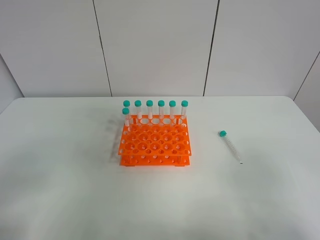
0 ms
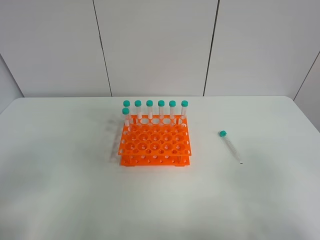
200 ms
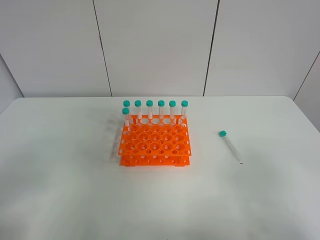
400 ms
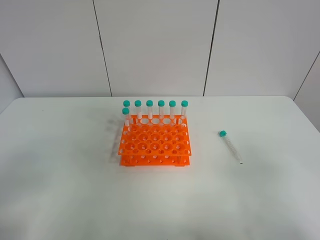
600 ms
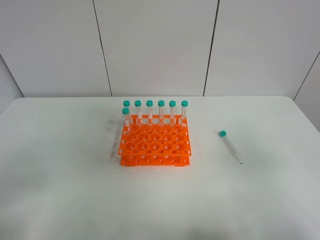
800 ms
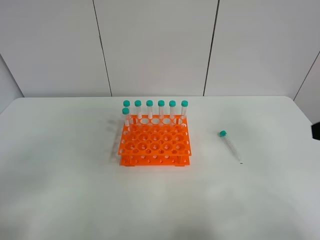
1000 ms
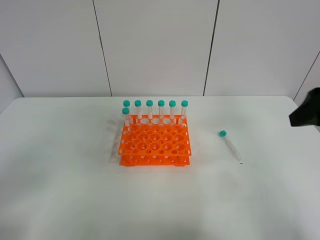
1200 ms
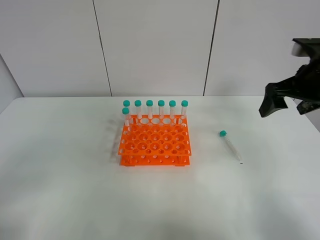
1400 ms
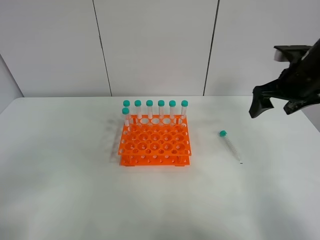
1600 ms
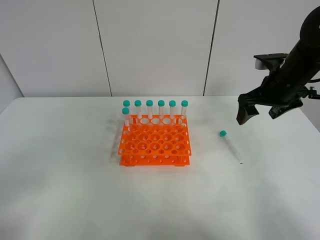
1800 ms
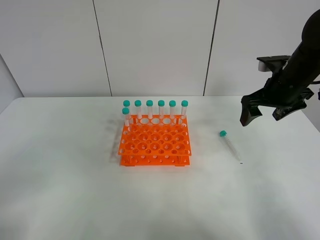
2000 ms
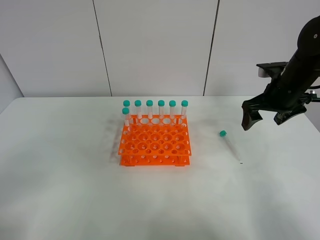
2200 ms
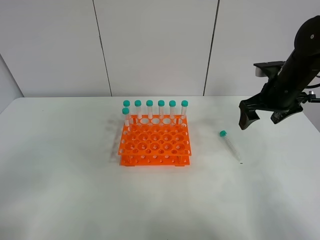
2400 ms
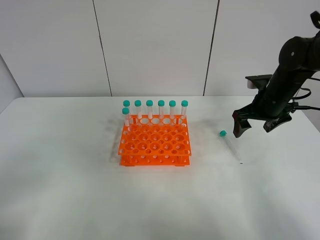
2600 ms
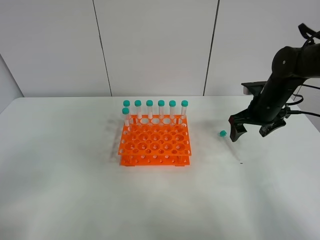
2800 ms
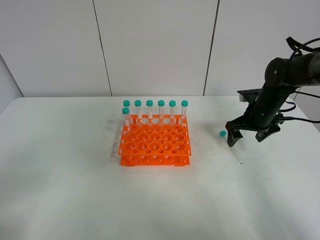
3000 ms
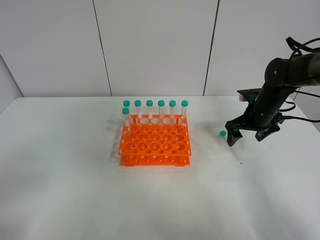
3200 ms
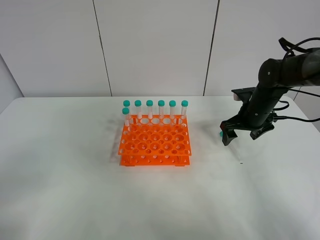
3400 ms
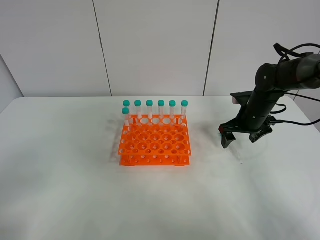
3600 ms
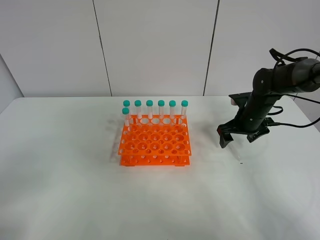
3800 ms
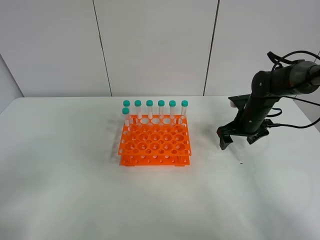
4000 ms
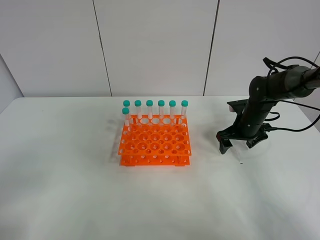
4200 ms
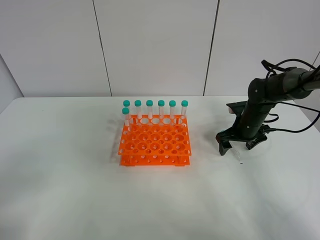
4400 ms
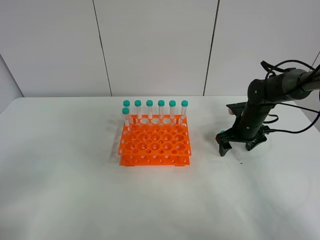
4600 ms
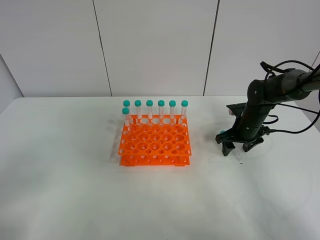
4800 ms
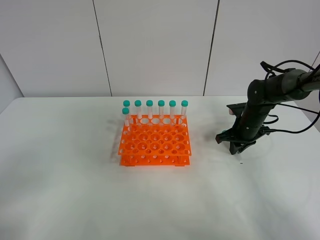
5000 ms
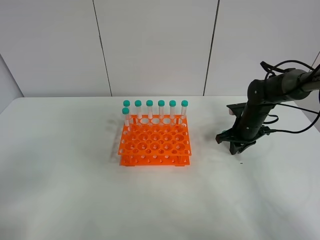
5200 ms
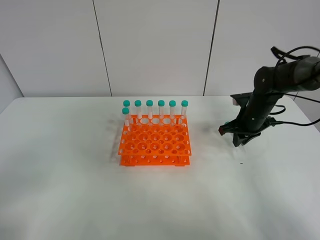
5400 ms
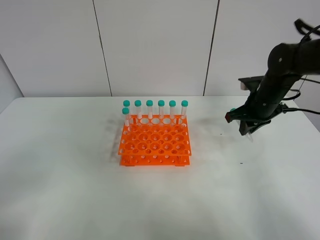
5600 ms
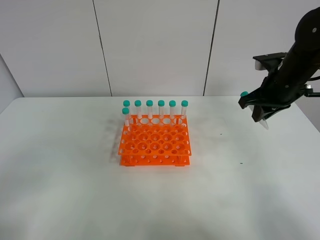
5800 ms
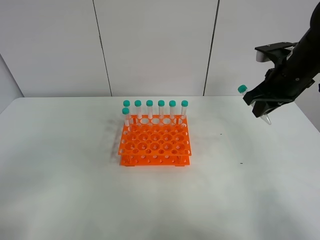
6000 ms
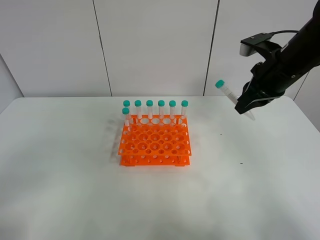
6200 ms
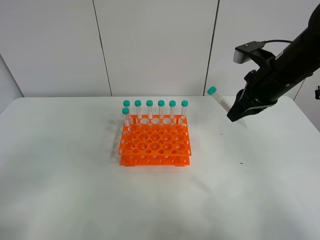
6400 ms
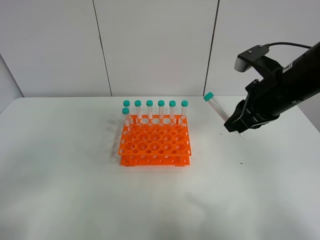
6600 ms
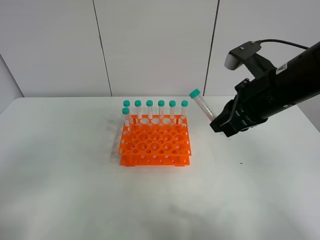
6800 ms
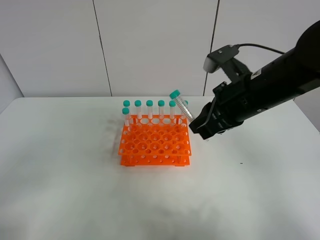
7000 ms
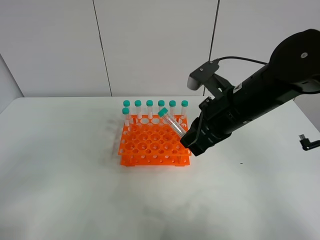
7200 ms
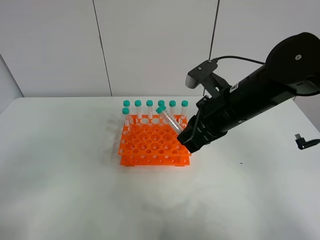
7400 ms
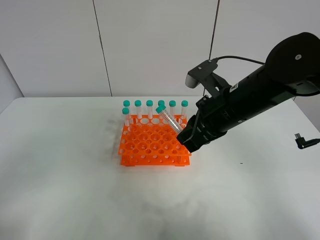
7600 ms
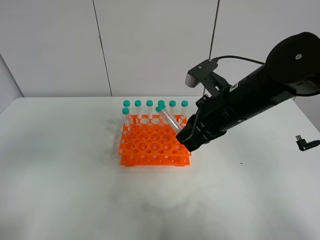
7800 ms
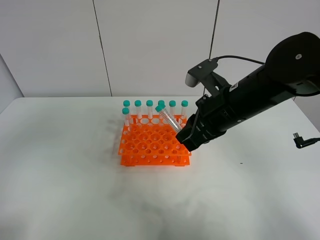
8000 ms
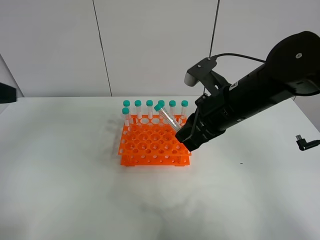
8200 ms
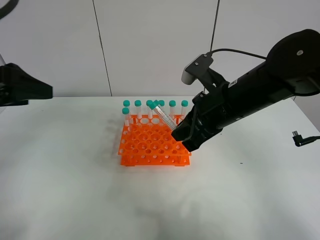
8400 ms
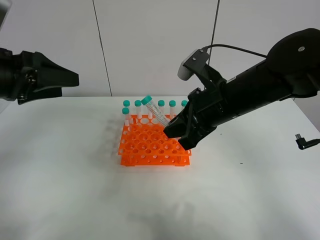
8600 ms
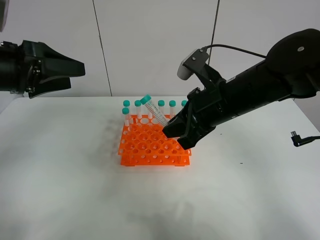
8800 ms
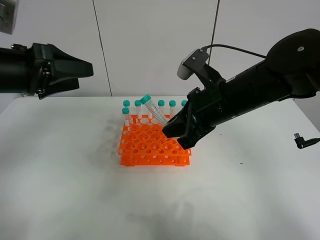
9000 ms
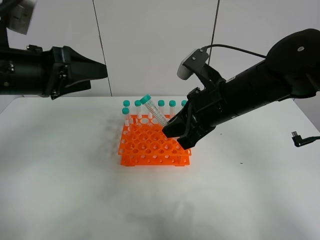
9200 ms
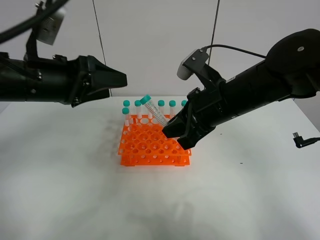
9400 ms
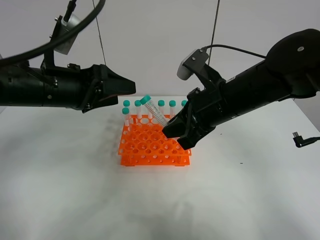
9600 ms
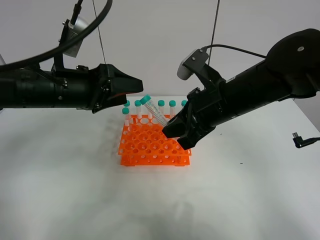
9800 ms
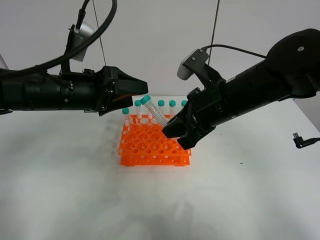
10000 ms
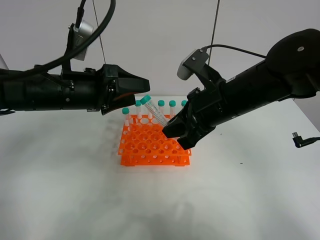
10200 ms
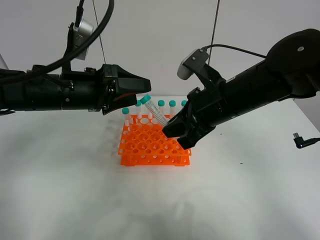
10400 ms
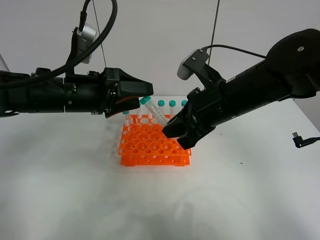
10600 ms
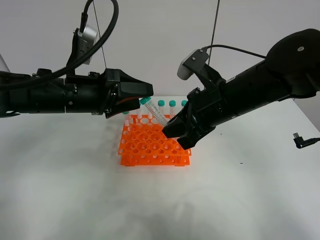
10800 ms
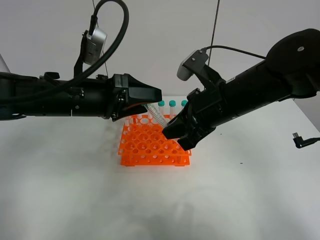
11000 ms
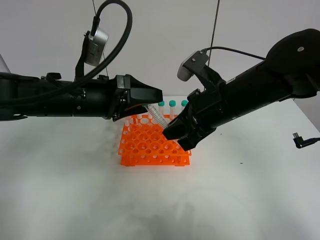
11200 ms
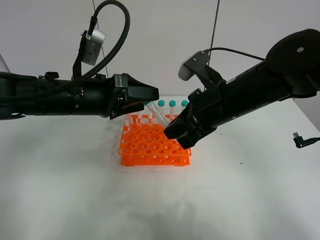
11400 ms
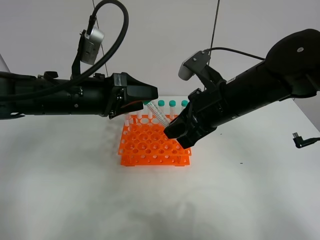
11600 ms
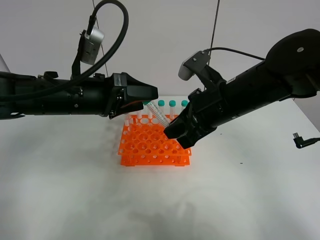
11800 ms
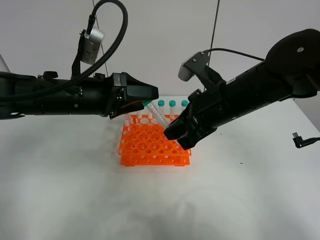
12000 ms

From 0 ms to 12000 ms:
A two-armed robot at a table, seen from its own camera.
Task of the whole recording: Put the test tube on the table back onto the test tube rack.
Step, from 0 ms to 5400 ms: Pick up the test tube with the right gripper.
From 0 ms to 1600 ms: The right gripper goes approximately 35 cm forward.
From 1600 ms to 3000 ms: The right gripper goes approximately 10 cm downward.
From 3000 ms to 4400 ms: The right gripper shifts some 5 cm downward.
From 4400 ms to 6000 ms: The right gripper travels upward by approximately 20 cm, and closes up.
From 6000 ms to 7600 ms: The right gripper travels to the left and backward by some 15 cm.
From 7600 ms to 9000 ms: The left gripper heads forward, covering some 25 cm.
From 9000 ms to 10400 ms: The left gripper is displaced to the right and downward by some 10 cm.
From 10400 ms to 12000 ms: There are only small adjustments of the grippers.

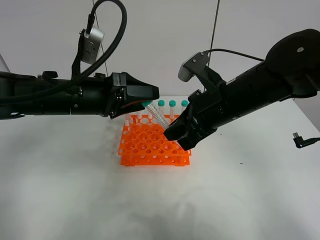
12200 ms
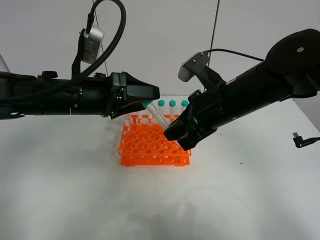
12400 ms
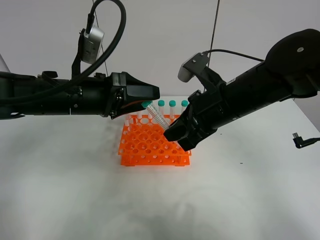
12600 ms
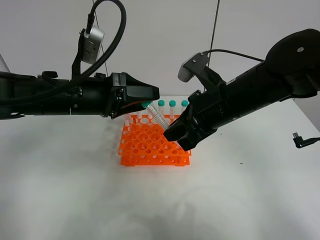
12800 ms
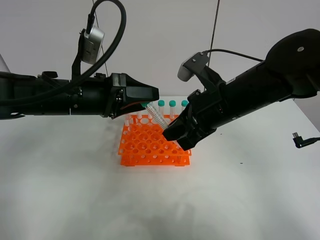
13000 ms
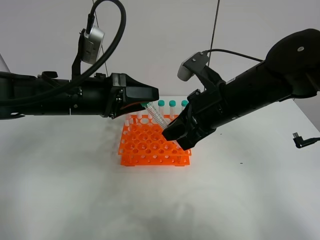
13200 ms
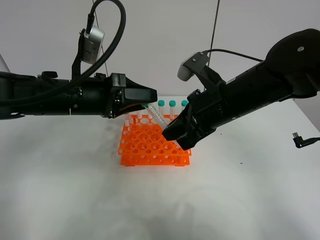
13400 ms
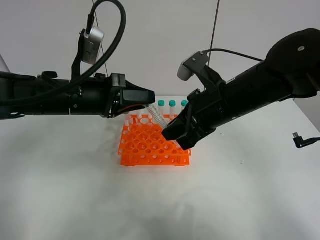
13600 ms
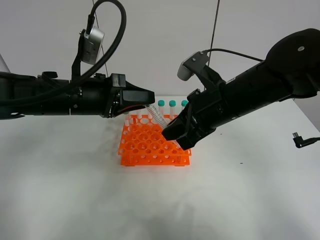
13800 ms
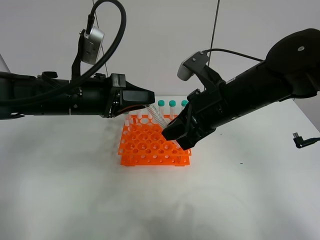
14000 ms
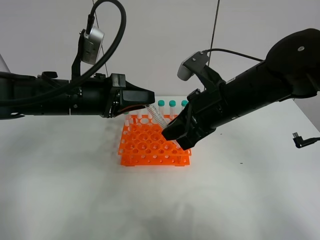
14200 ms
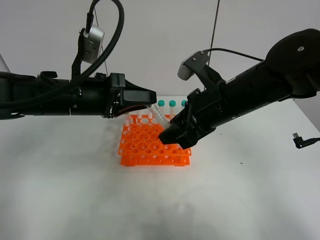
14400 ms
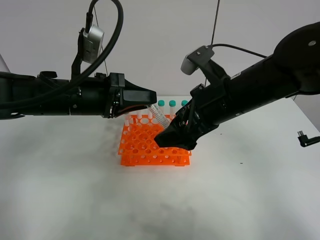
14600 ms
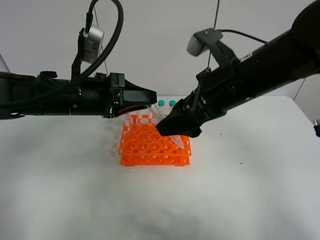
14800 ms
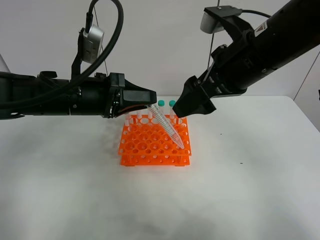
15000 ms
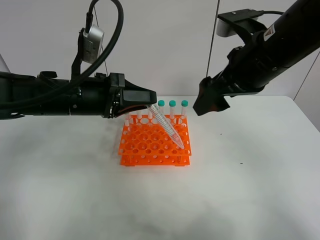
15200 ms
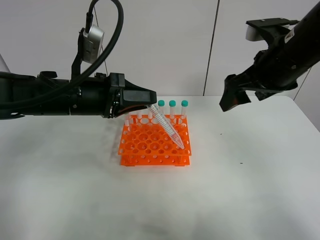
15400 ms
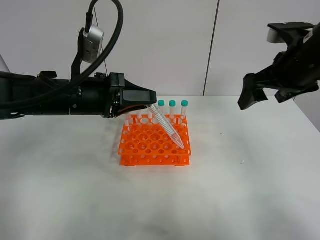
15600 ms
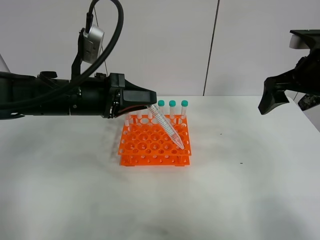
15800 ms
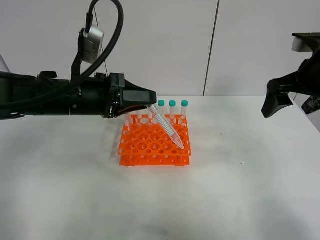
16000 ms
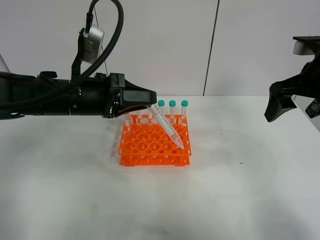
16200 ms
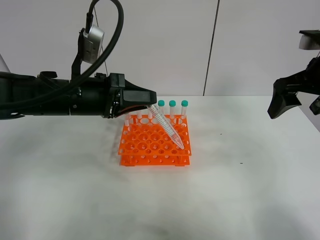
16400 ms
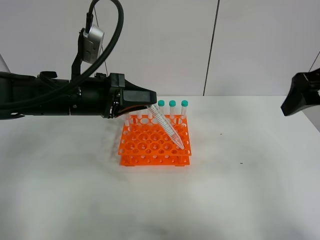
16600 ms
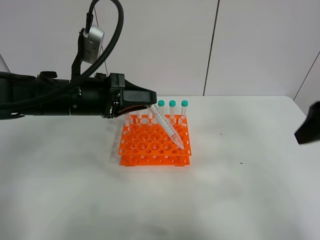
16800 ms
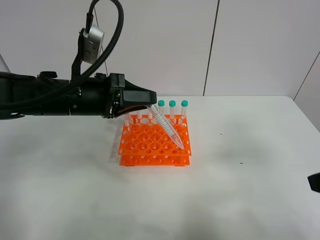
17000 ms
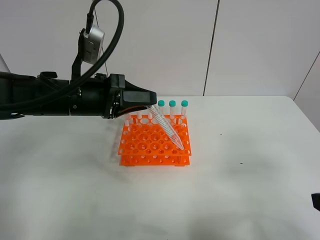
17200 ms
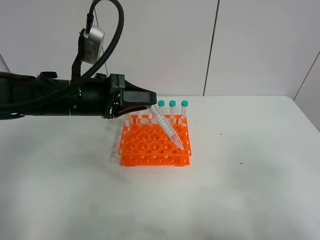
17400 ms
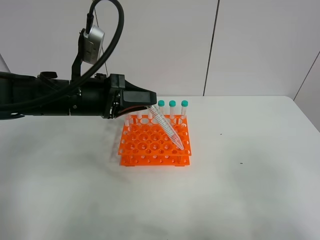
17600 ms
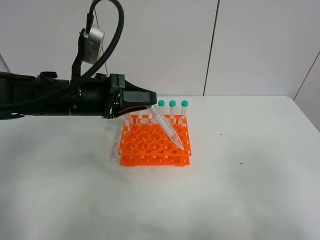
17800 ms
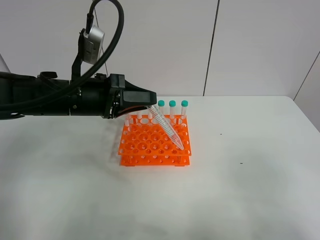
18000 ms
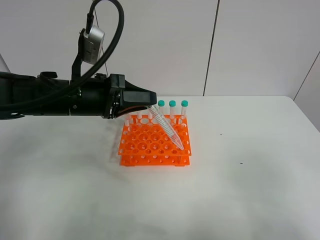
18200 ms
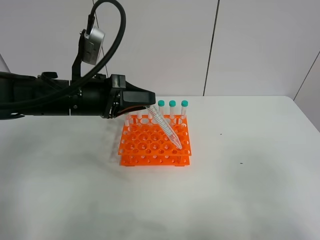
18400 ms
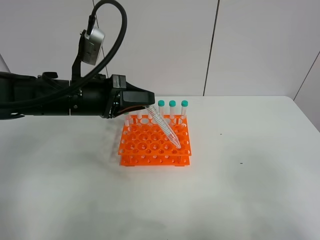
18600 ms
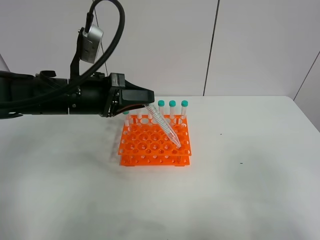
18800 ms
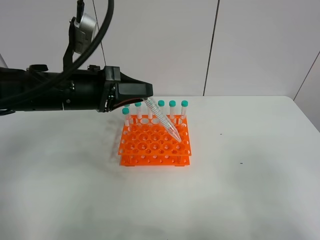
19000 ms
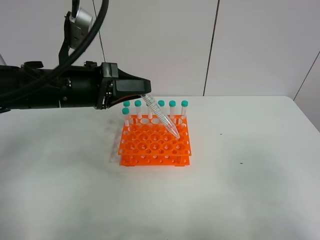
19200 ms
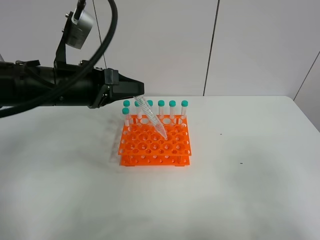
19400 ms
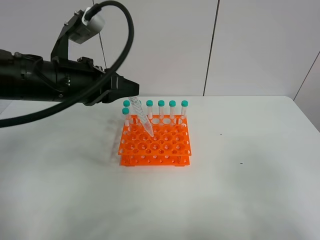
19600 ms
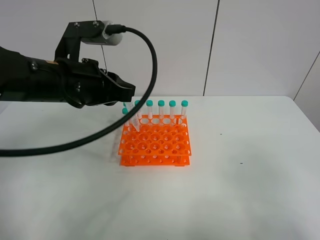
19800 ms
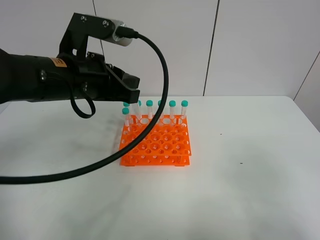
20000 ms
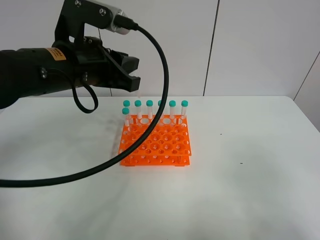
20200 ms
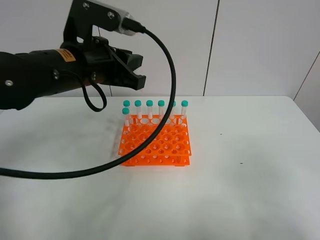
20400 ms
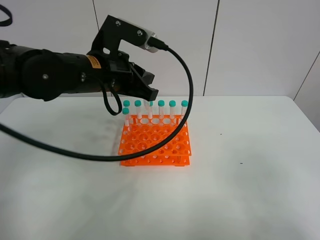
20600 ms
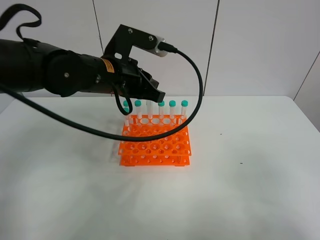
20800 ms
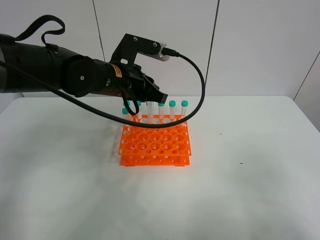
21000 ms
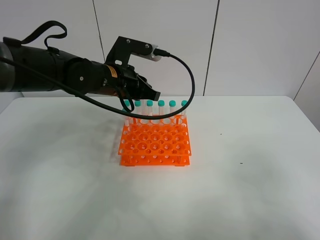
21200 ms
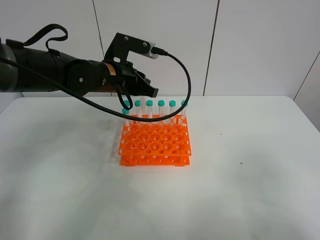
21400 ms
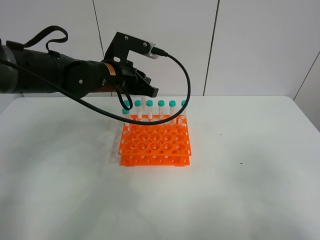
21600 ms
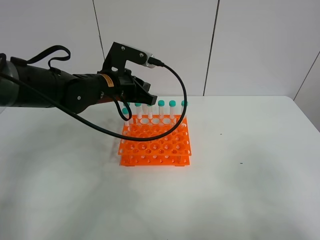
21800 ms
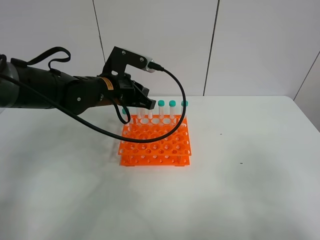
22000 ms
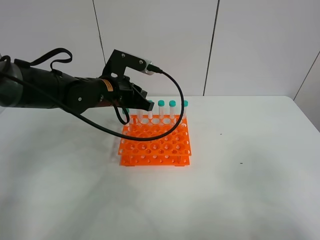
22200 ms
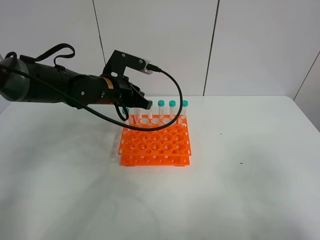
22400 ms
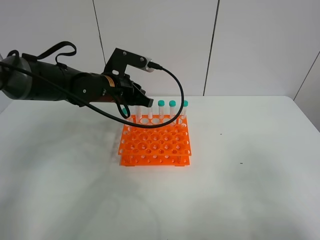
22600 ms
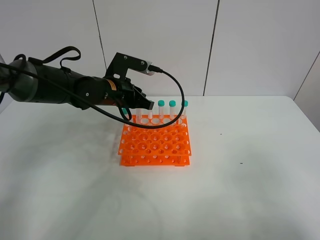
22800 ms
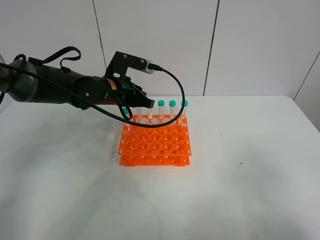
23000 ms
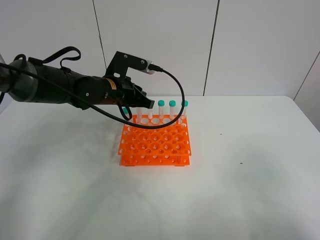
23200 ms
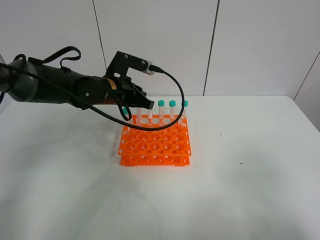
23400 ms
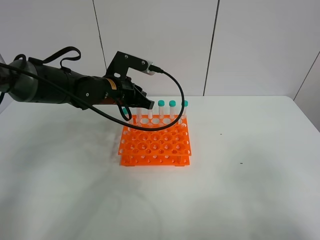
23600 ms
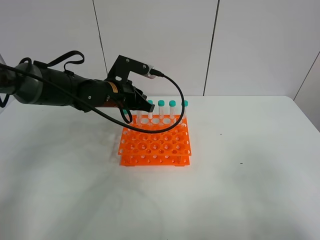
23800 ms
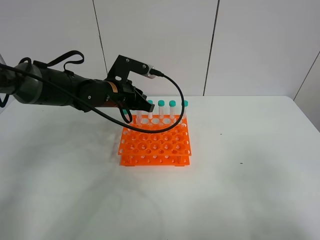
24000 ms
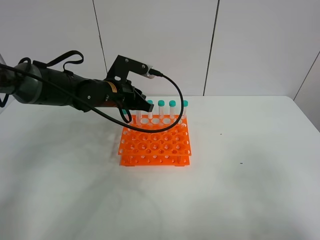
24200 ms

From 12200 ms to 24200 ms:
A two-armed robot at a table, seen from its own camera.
Task of the whole recording: Put the test tube on the table back onto the test tube rack.
Step, from 12200 ms to 14600 ms: Move the test tube from the right gripper to the left gripper.
From 12200 ms to 13800 ms: The left gripper closes up.
From 13800 ms to 15200 ms: The right gripper heads upward, covering approximately 5 cm, and opens up.
From 15200 ms to 16600 ms: The right gripper is displaced to the right by about 10 cm.
From 16600 ms to 18200 ms: The right gripper moves backward, roughly 20 cm.
From 18200 ms to 19800 ms: The left gripper moves upward, about 5 cm.
From 19800 ms to 21200 ms: The left gripper moves forward and to the right, some 10 cm.
From 21200 ms to 24200 ms: There are only small adjustments of the grippers.
